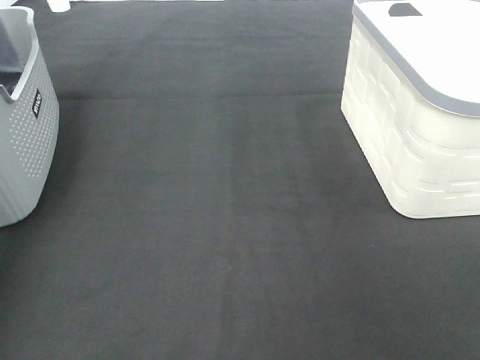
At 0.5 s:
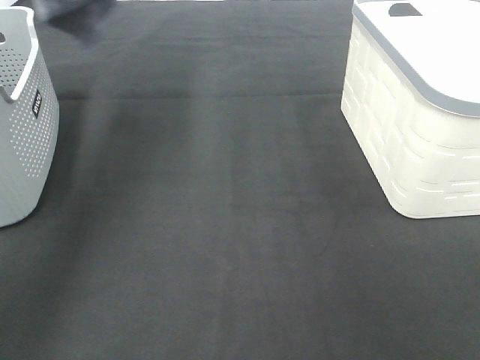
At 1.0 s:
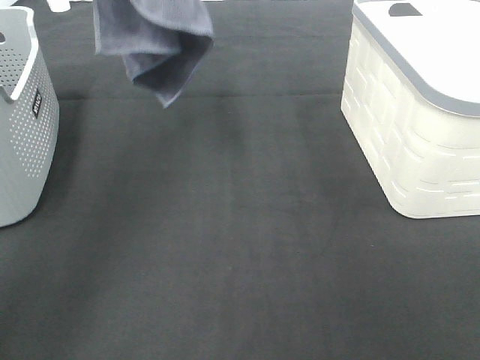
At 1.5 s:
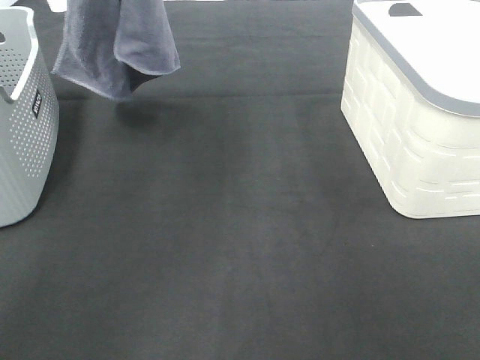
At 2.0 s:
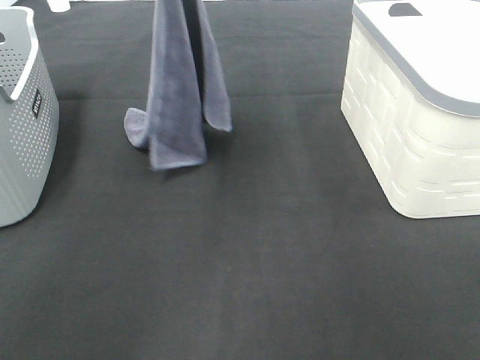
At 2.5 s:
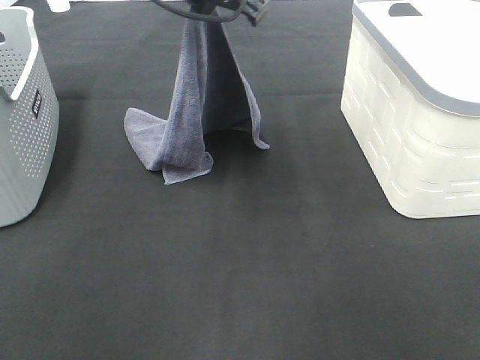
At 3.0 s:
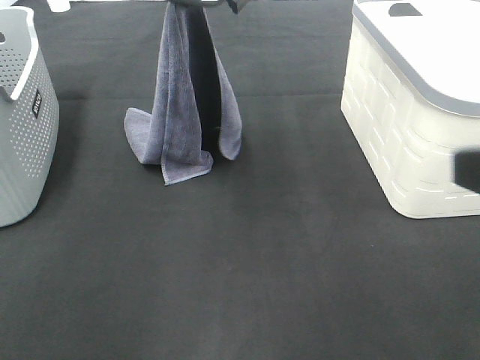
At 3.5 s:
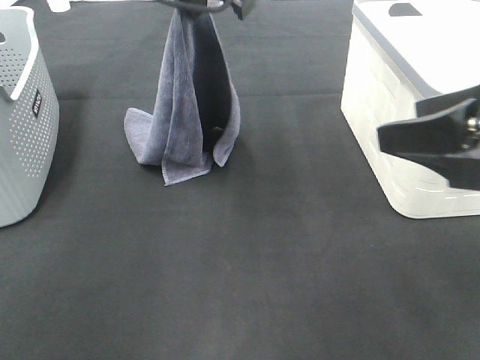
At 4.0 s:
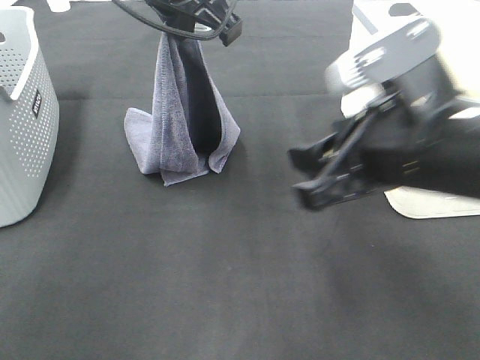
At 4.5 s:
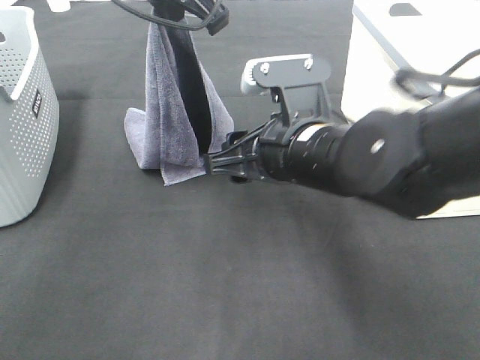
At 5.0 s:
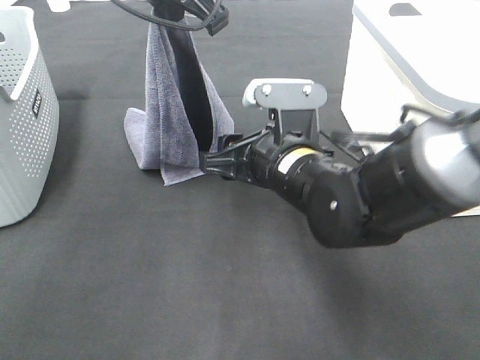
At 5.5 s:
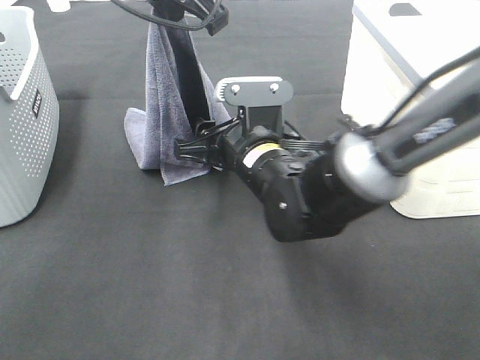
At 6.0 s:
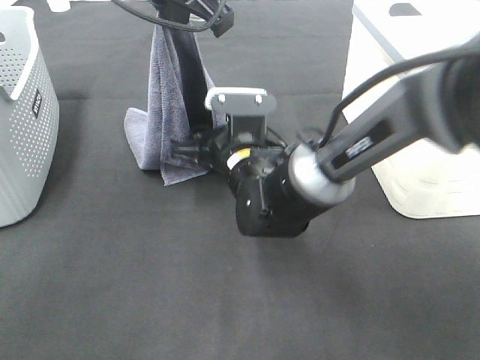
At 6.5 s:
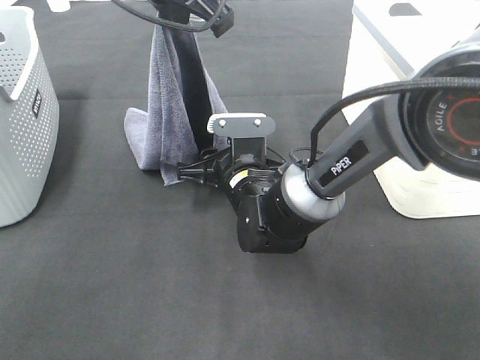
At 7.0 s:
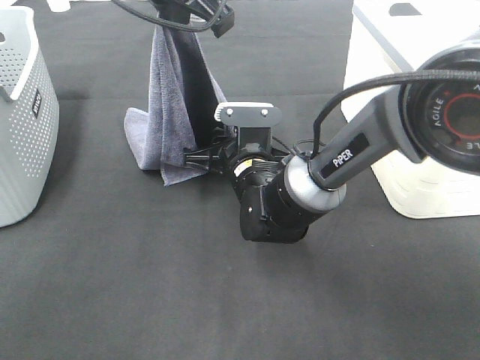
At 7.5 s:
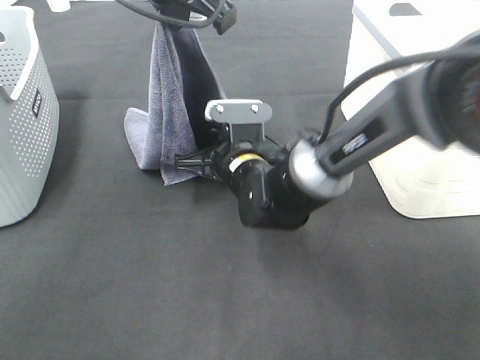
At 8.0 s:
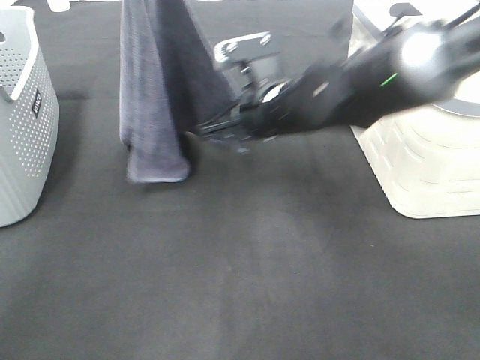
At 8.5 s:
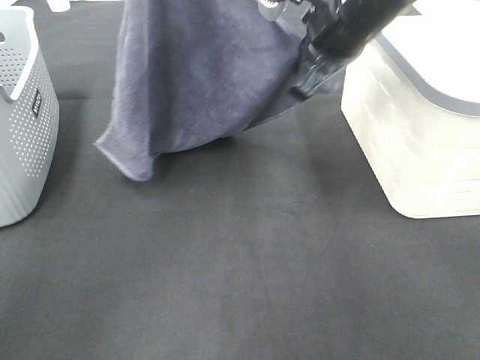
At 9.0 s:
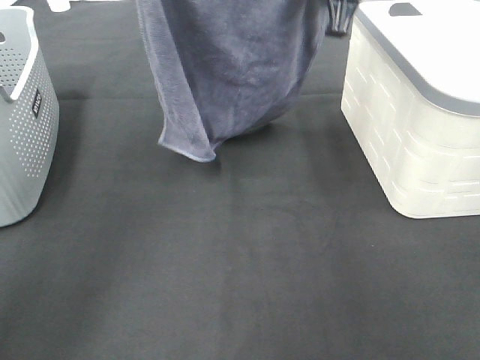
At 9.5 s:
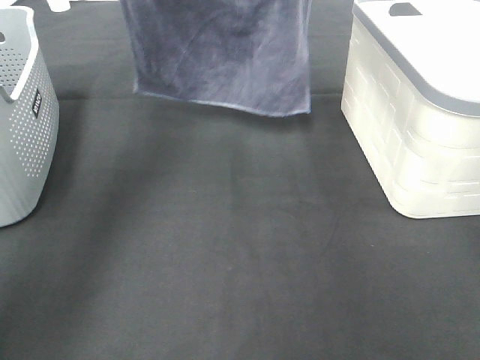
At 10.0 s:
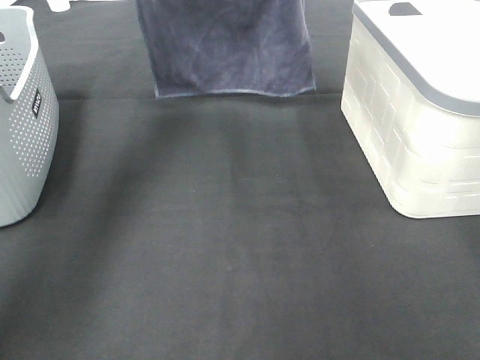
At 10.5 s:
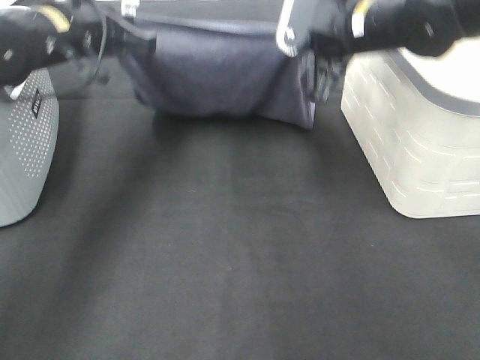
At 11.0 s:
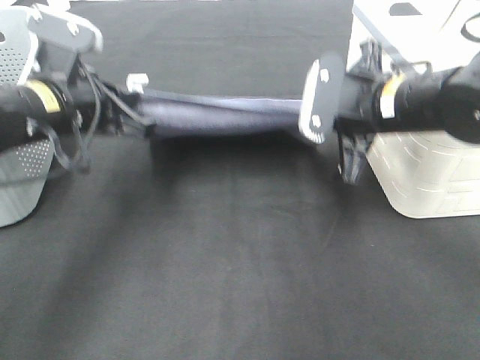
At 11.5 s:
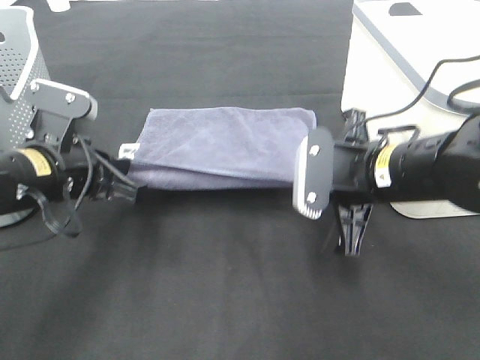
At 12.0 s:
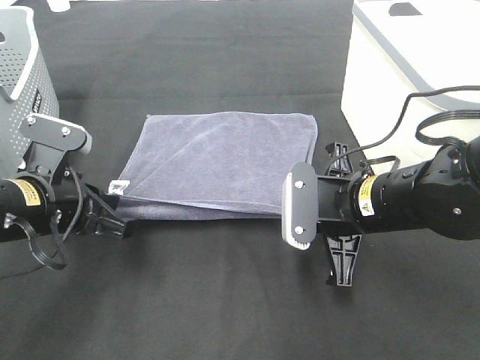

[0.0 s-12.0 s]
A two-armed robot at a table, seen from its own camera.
Task of the whole recording: Remove the towel and place it.
Step, 0.0 to 5.0 s: Right hand: grab a corner of the grey towel and straighten it.
Step, 5.5 to 8.0 s: Left hand: spread the grey towel flat on the table.
Step, 5.5 to 8.0 s: Right hand: spread the grey towel flat on the table.
0.0 to 2.0 s: The left gripper is displaced to the right by some 30 cm.
2.0 to 4.0 s: The left gripper travels backward by about 5 cm; the right gripper is displaced forward and to the left by approximately 25 cm.
4.0 to 6.0 s: The right gripper travels downward, forward and to the left by approximately 25 cm.
6.0 to 8.0 s: The right gripper shifts approximately 10 cm upward and to the right, and closes up. Meanwhile the left gripper is displaced to the left and upward by approximately 10 cm.
8.0 to 10.0 s: The left gripper moves forward, downward and to the left, roughly 20 cm, while the right gripper heads upward and forward, covering about 20 cm.
10.0 to 12.0 s: The two grippers go about 30 cm backward and downward.

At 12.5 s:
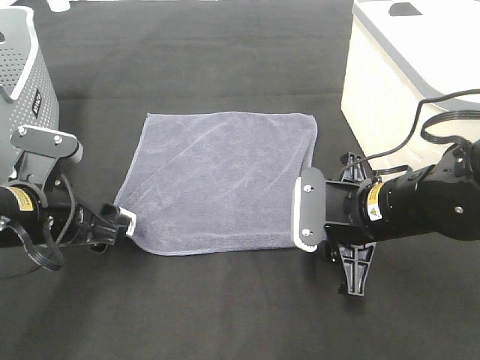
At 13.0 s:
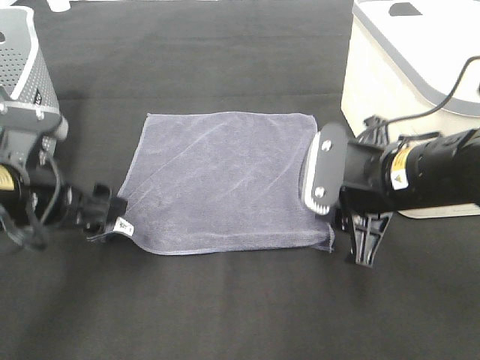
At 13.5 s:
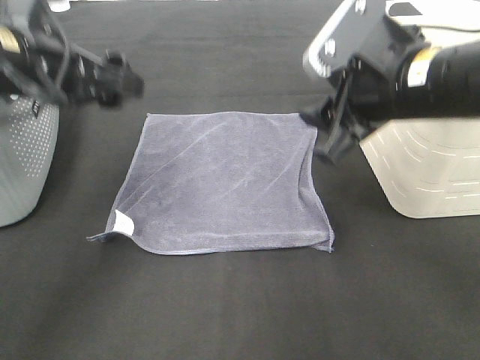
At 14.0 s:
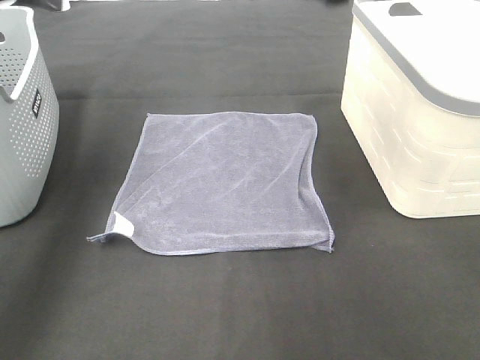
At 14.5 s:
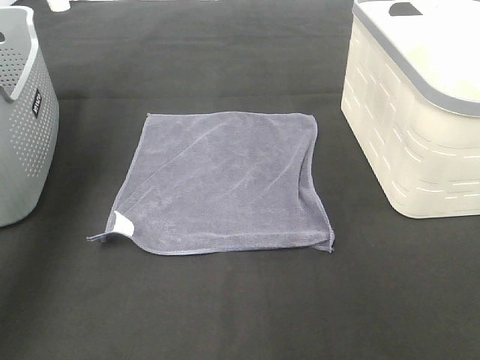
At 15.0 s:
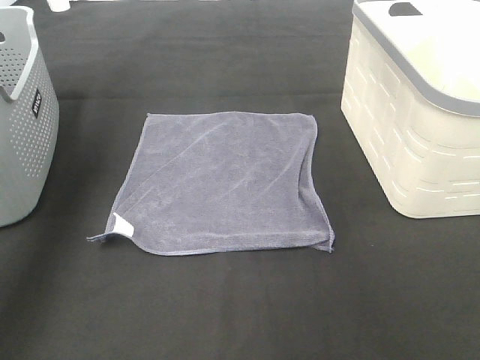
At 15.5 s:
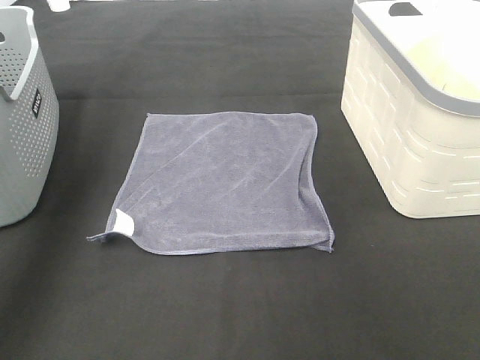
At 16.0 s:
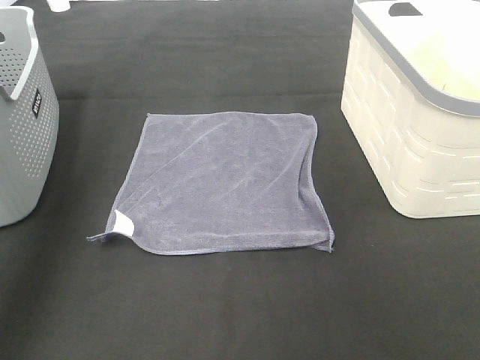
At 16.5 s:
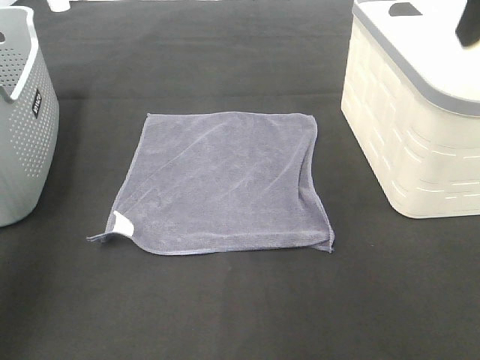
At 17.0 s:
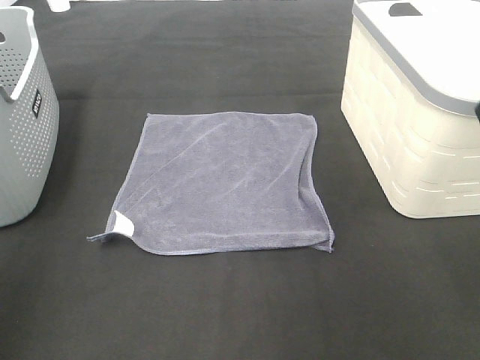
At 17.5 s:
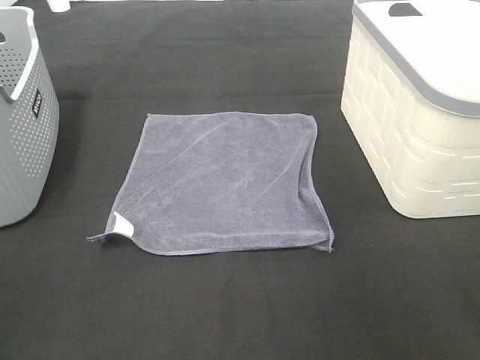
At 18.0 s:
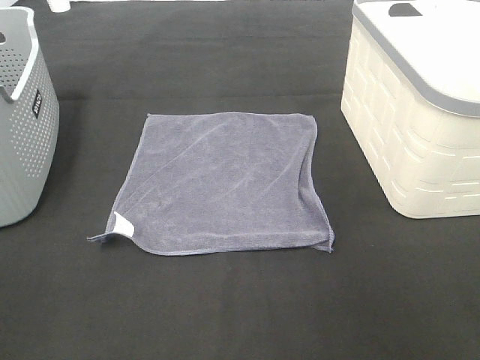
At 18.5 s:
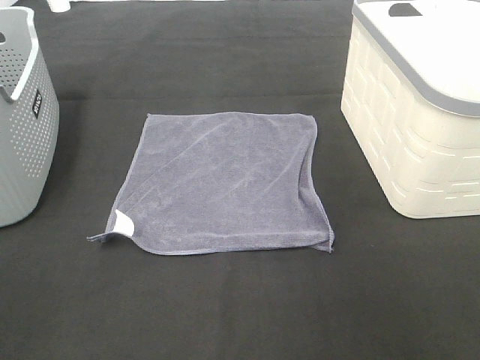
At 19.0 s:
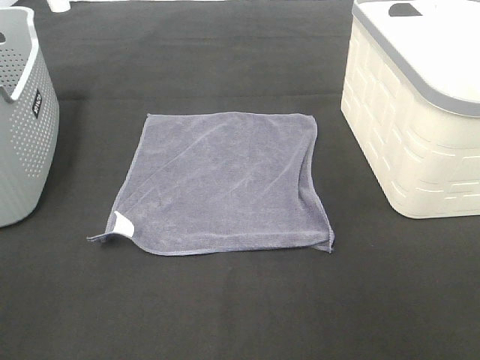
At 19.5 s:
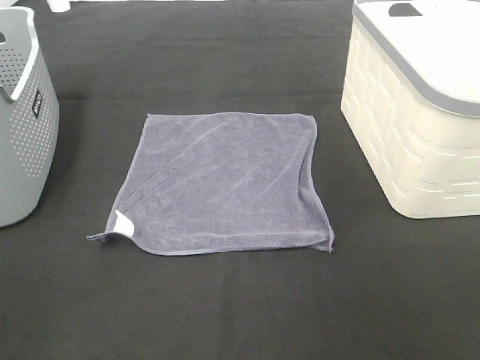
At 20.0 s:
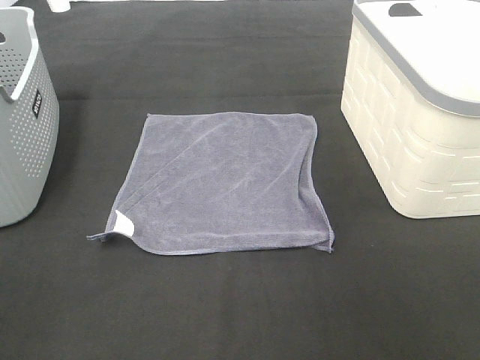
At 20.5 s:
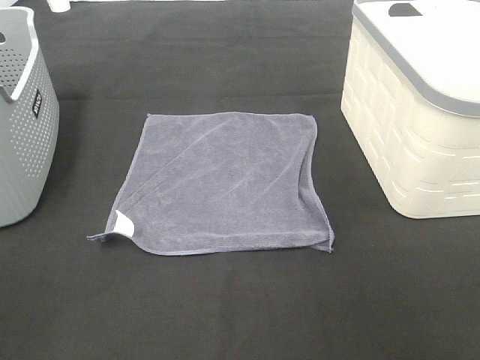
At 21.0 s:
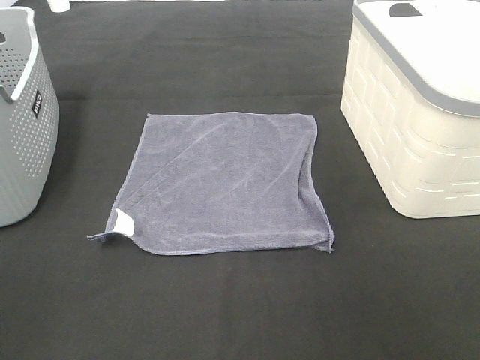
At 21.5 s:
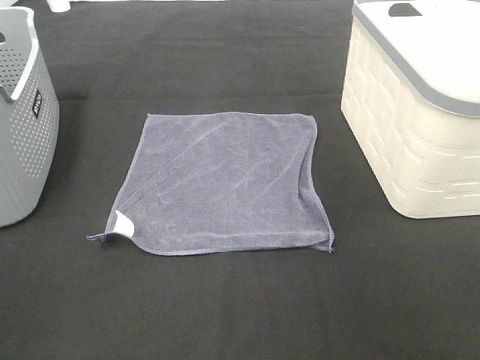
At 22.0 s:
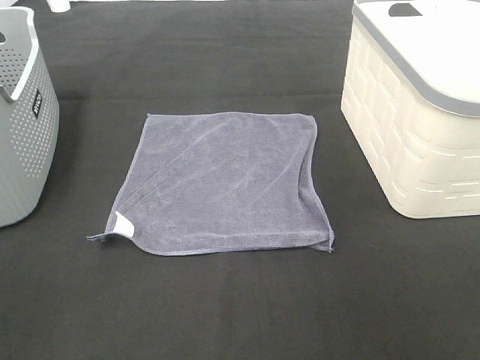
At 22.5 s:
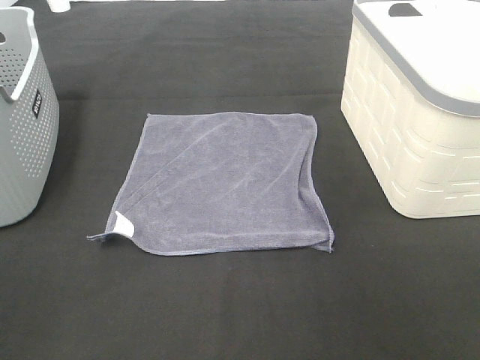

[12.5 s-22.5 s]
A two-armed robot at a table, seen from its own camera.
Task of the whole recording: Remove the towel and place it.
12.5 to 14.5 s: Both grippers travel together upward and forward, about 30 cm.
14.5 to 16.5 s: The right gripper is displaced backward by about 15 cm.
16.5 to 18.5 s: The grippers both shift backward and downward by roughly 25 cm.

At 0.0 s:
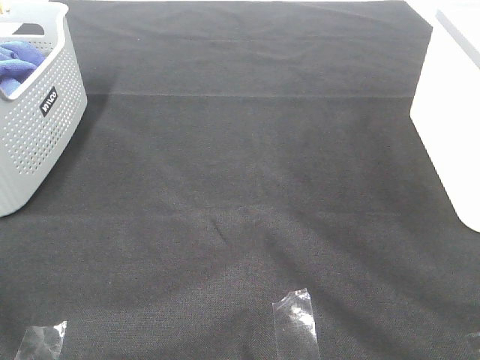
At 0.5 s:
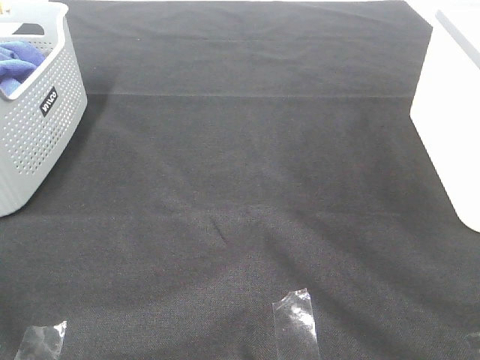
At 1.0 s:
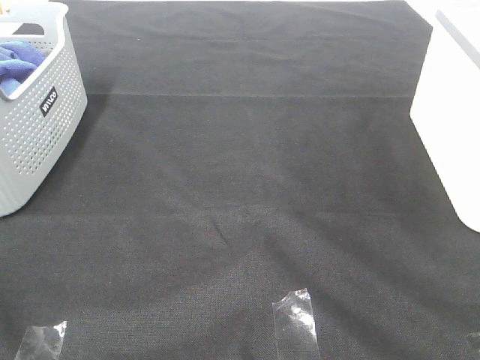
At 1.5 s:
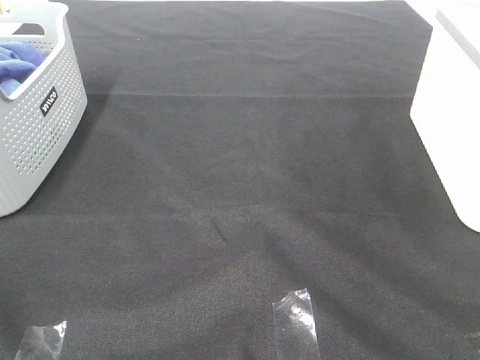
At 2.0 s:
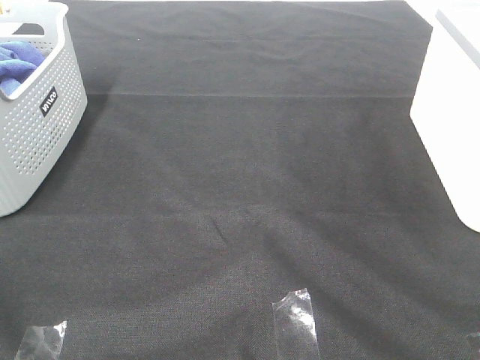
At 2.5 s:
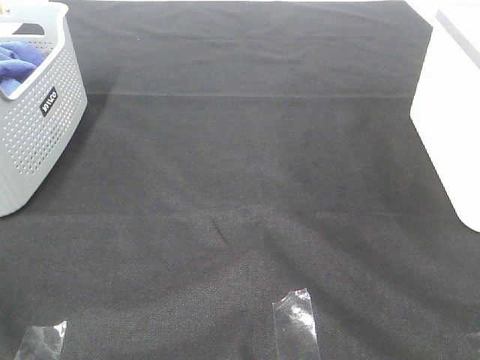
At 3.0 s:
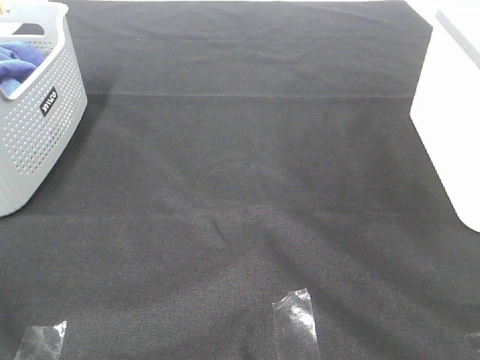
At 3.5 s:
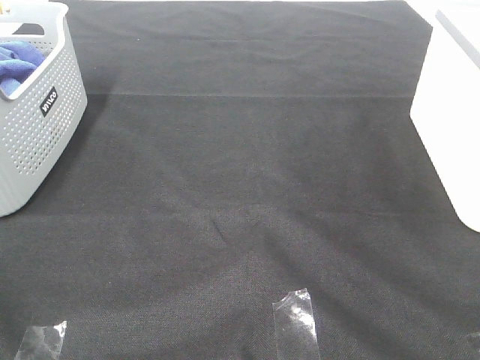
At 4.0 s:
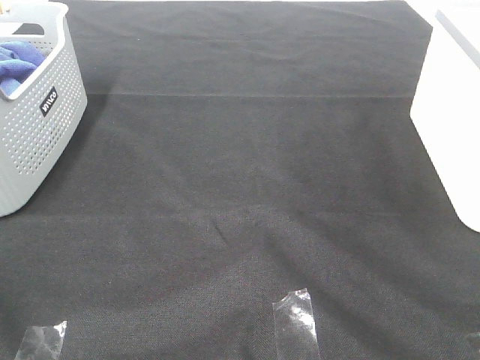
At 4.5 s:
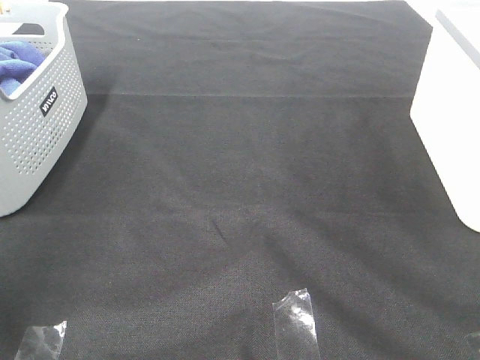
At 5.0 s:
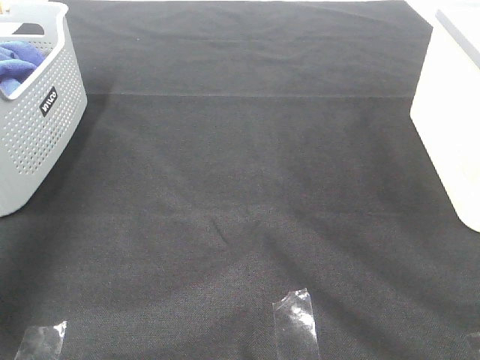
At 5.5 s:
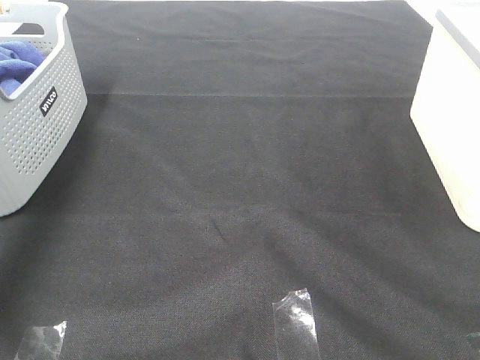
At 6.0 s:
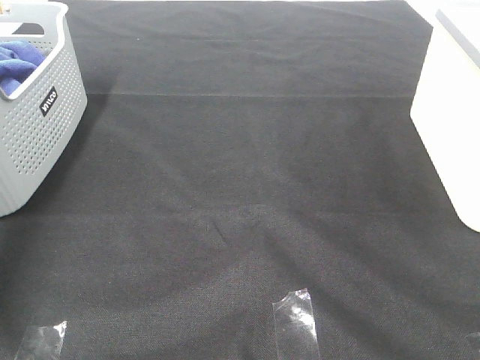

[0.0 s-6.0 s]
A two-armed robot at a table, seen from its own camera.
Task of the whole recording: Remove the towel and place it.
0.0 to 4.0 s: Both grippers stay put.
4.0 to 6.0 s: The left gripper is displaced forward by about 50 cm.
